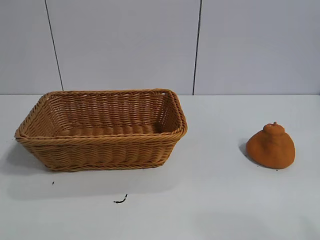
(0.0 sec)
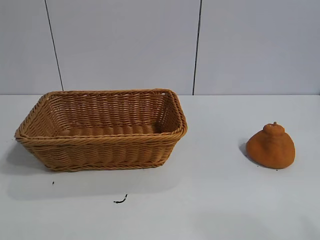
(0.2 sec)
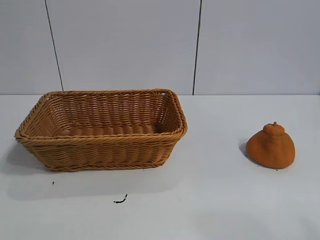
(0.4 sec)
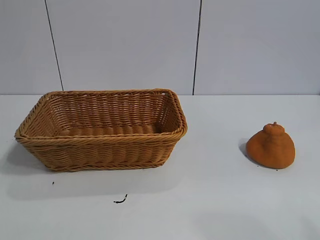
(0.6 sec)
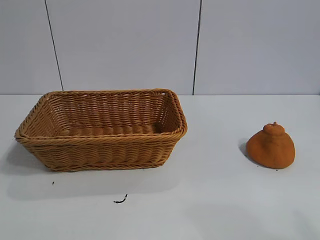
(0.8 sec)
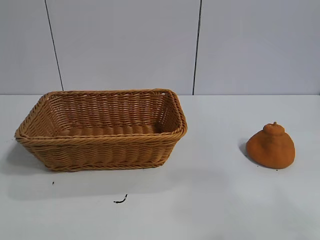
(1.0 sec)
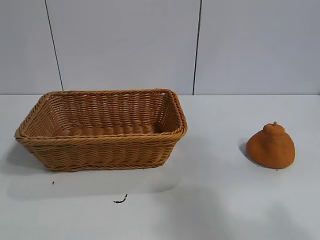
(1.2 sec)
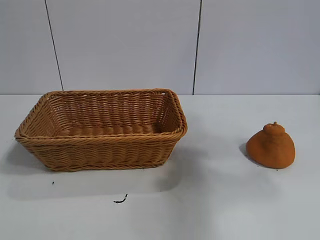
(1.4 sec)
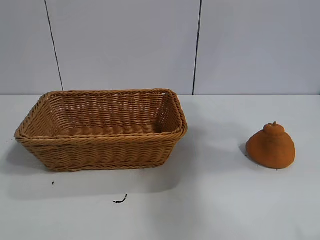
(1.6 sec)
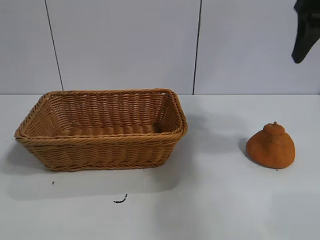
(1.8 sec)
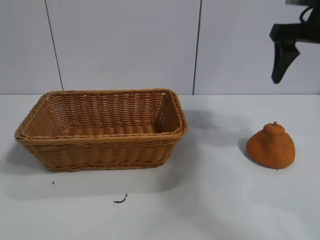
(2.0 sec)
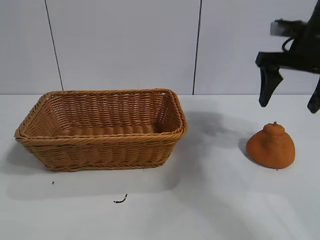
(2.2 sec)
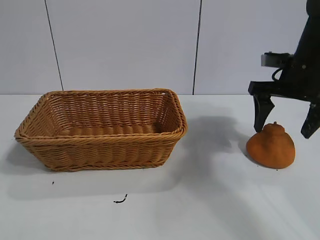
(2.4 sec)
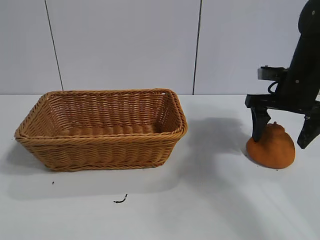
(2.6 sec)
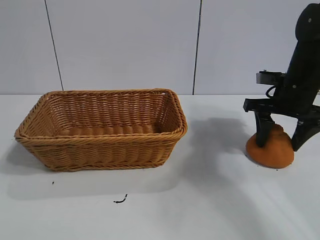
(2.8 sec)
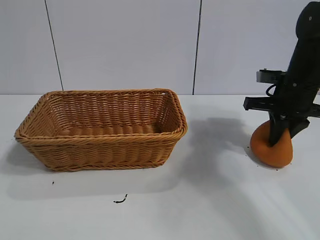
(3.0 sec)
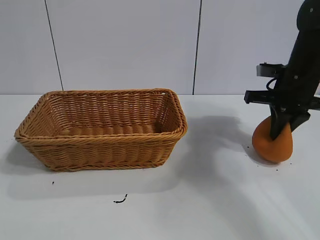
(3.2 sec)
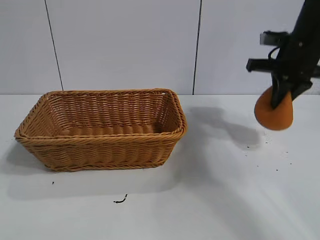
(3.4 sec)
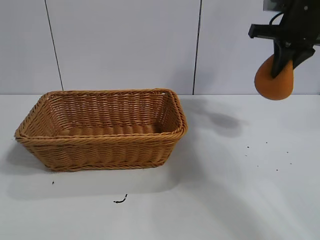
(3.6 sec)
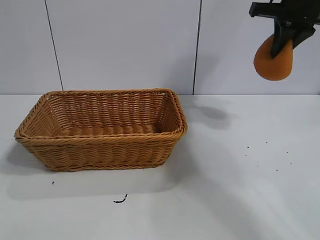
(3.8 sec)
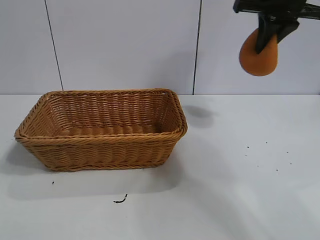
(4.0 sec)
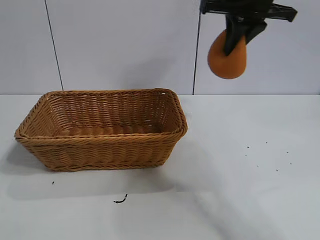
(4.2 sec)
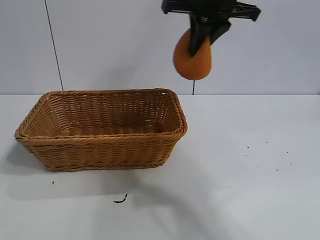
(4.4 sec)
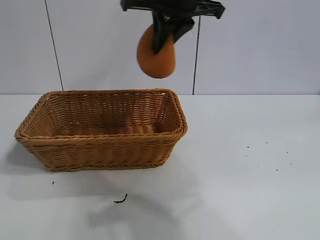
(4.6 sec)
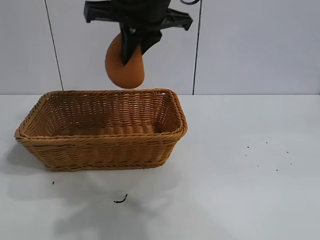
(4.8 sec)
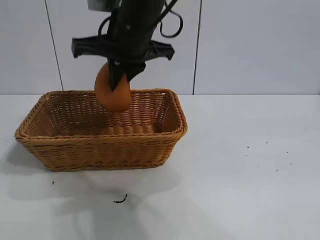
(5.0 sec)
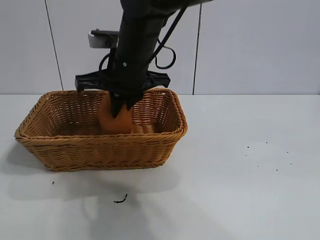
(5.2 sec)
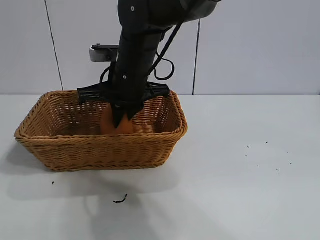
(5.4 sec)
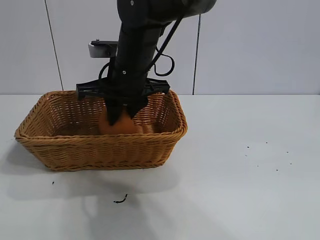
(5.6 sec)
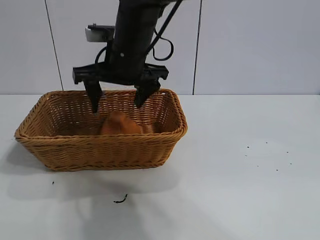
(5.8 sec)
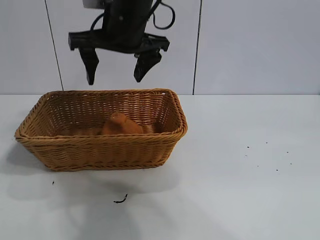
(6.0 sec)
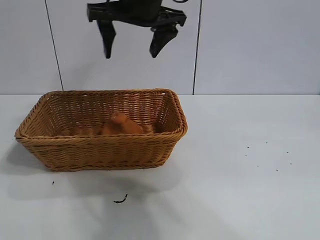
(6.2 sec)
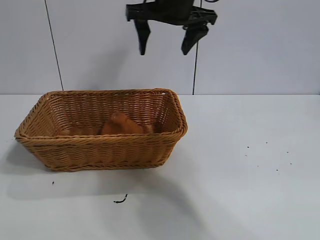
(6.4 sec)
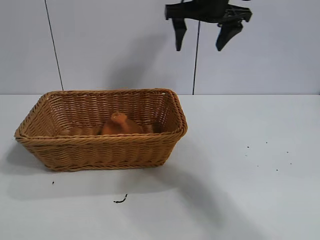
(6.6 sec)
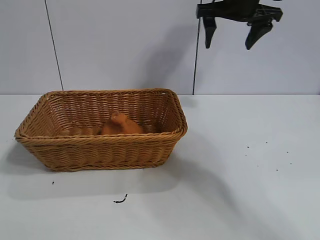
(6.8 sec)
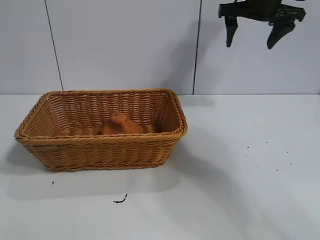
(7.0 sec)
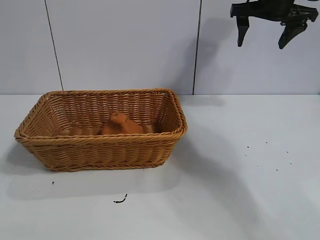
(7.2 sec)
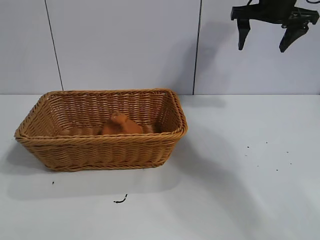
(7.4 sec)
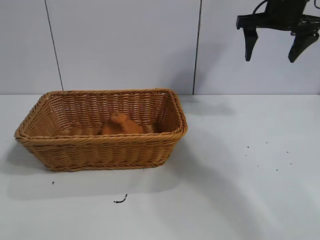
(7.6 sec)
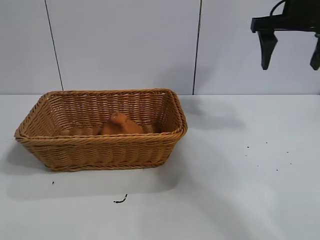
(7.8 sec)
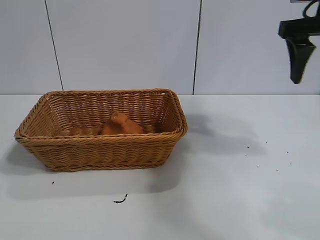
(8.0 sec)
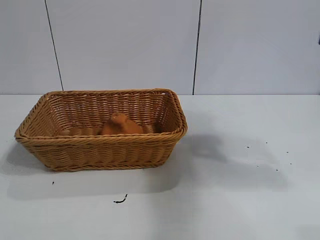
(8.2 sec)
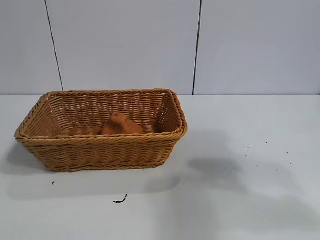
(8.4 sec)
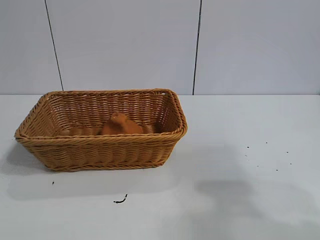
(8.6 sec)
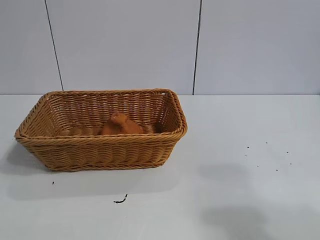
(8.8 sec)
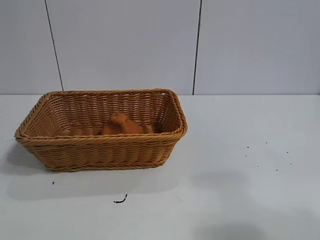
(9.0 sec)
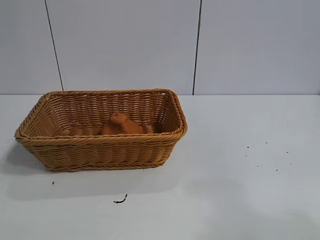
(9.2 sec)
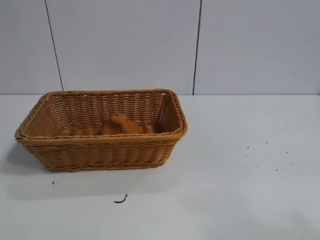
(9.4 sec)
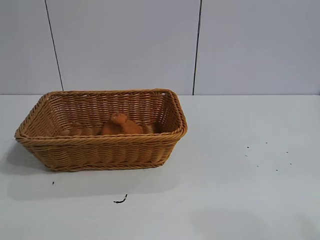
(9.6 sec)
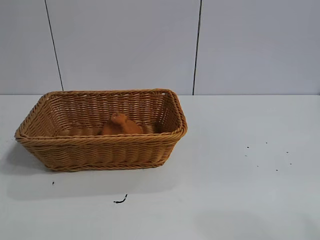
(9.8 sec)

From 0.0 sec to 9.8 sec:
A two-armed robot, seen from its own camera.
Task of the whole recording: pick up the orange and put it into the basket.
Step, from 0.6 sec to 3.0 sec: Grasp the orange with right gripper.
Step, from 3.2 sec to 5.8 sec: Place the orange in the basket with right gripper.
